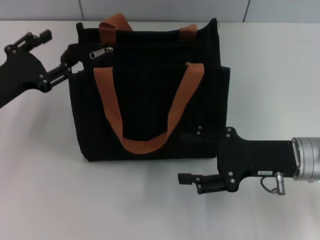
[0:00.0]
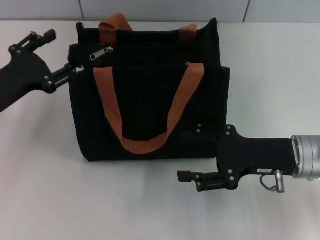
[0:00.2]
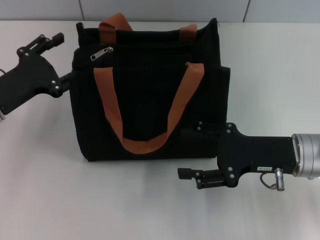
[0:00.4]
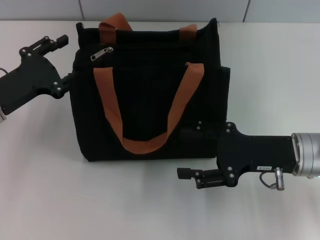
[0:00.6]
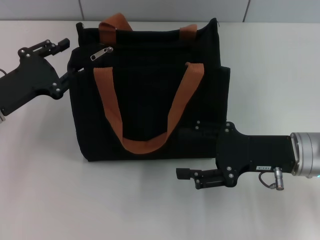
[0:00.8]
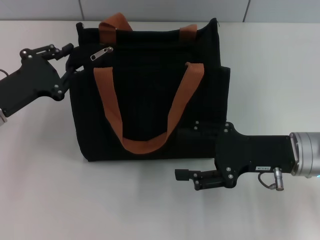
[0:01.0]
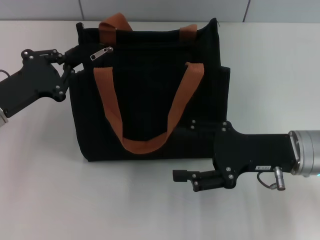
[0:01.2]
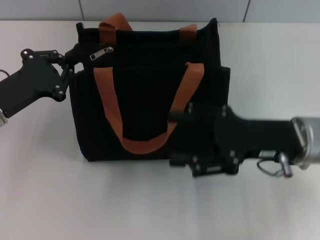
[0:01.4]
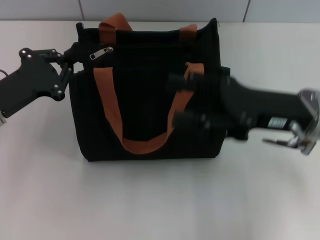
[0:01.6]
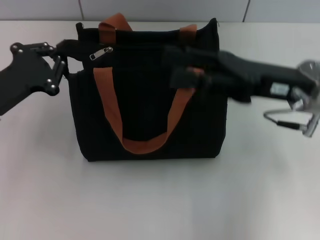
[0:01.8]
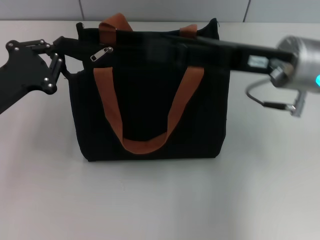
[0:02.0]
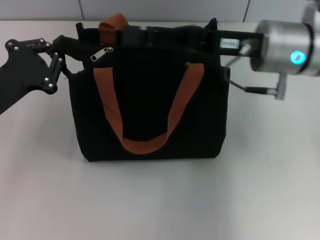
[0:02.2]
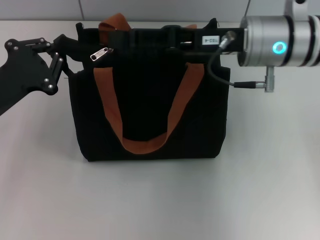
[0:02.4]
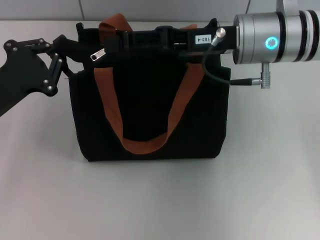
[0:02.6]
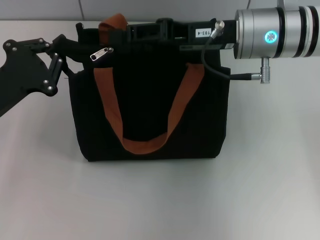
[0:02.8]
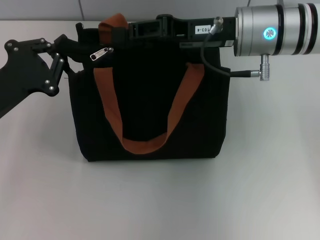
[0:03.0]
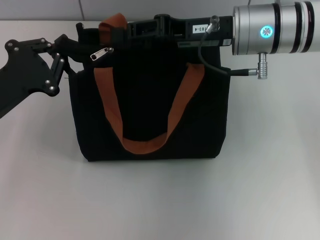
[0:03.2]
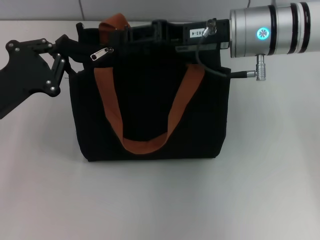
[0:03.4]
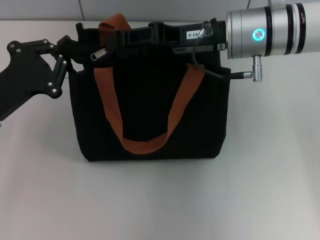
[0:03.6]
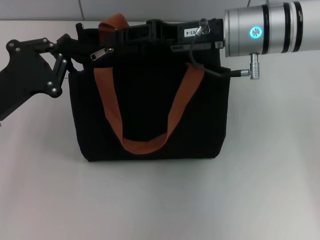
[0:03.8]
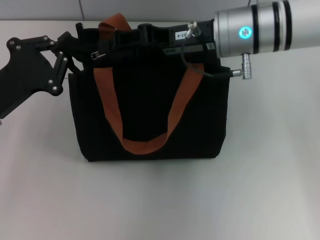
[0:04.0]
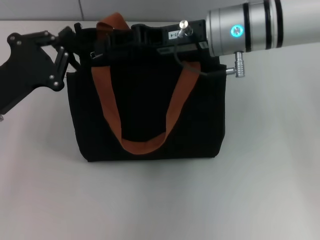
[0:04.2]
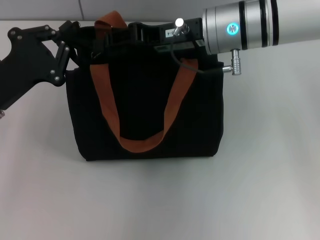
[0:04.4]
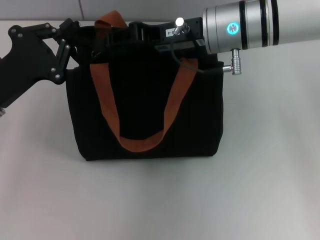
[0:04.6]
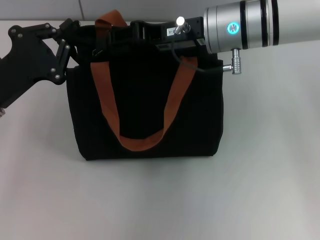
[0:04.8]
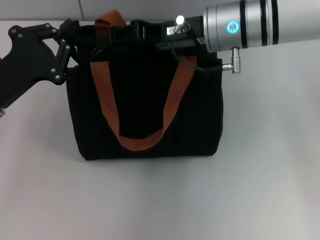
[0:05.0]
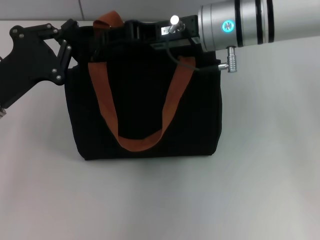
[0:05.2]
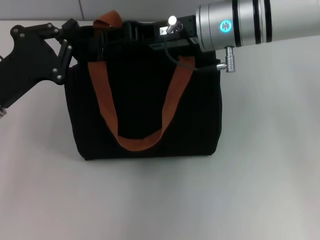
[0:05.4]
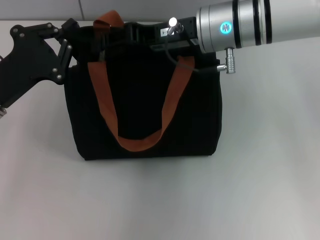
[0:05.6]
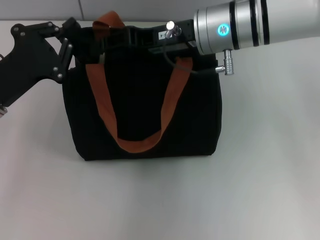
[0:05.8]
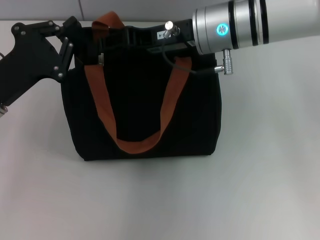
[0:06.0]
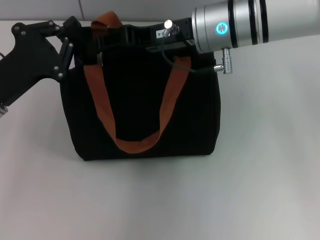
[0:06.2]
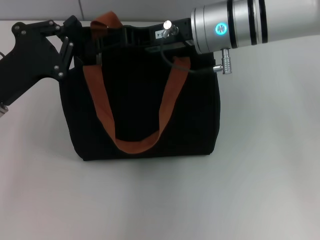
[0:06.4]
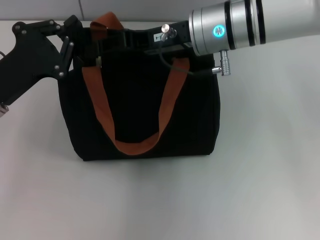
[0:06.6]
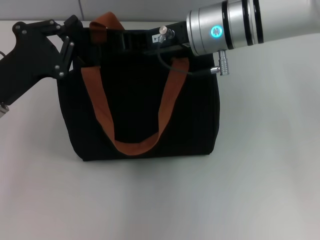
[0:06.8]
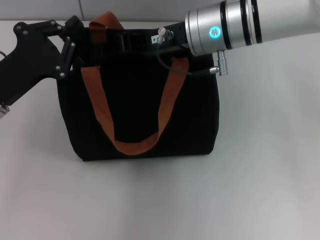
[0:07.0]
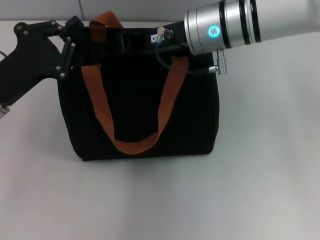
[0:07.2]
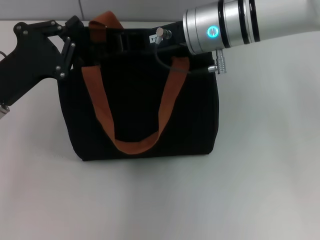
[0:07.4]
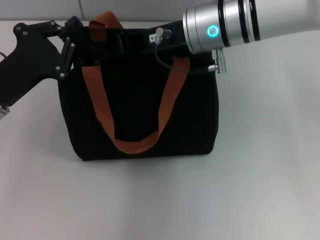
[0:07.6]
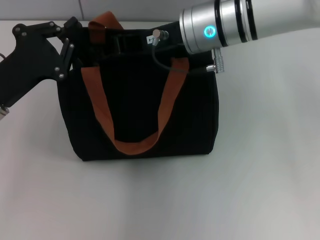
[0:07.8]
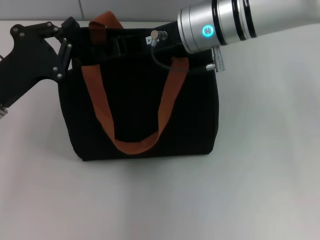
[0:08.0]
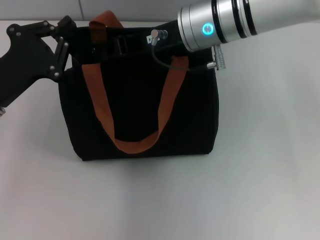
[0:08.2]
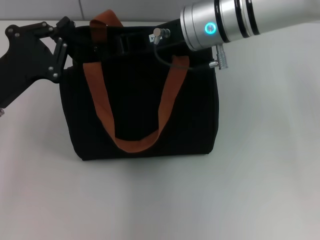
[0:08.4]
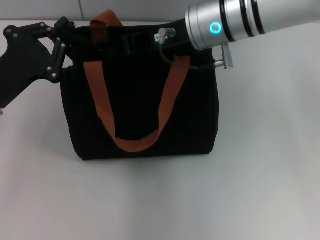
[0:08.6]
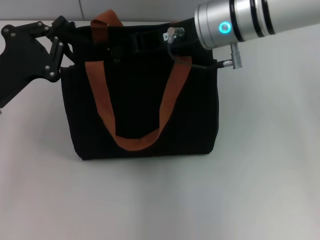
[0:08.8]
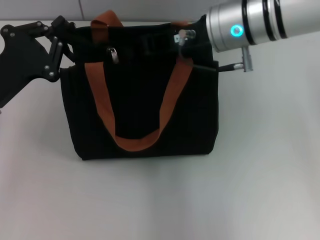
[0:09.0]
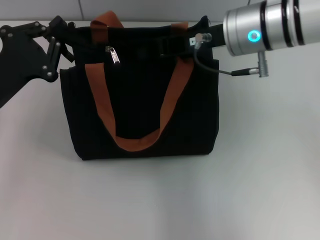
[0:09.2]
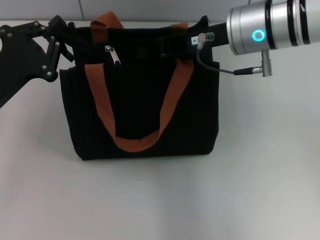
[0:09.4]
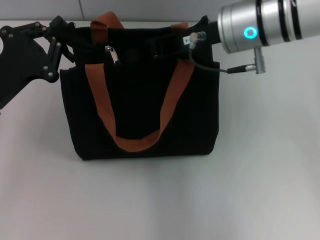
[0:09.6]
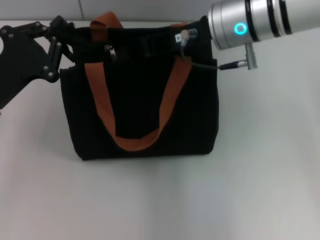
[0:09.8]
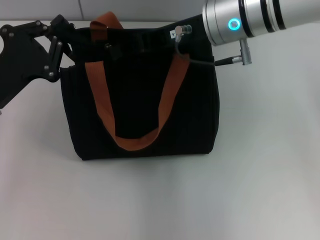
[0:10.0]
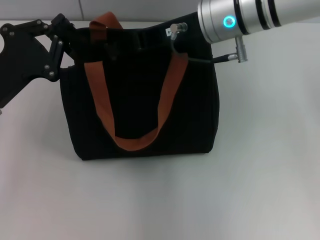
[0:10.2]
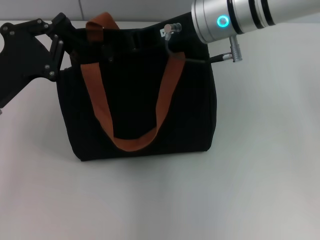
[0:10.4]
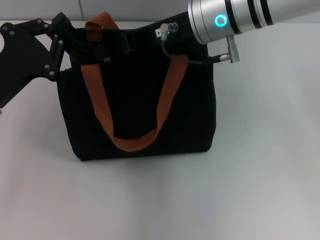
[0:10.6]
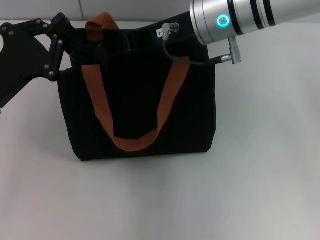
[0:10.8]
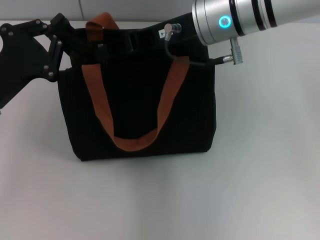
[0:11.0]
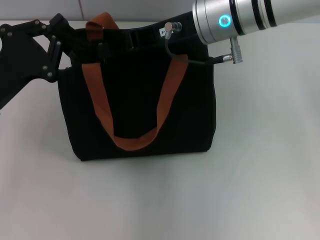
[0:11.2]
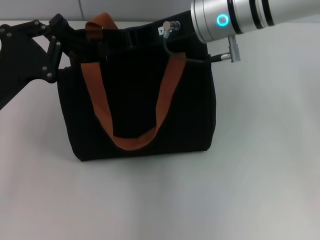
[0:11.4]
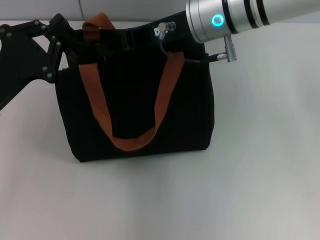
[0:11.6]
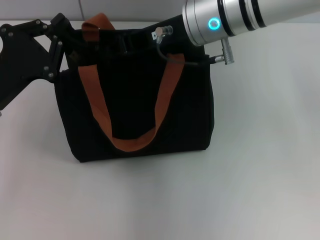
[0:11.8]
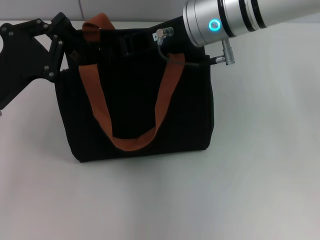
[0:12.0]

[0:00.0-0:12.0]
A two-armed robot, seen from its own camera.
0:00.0 to 0:01.6: The left gripper closes; the right gripper travels upward by about 5 cm.
0:01.6 to 0:03.0: The right gripper is displaced forward, to the left and upward by approximately 10 cm.
0:03.0 to 0:04.4: The grippers move only a little.
0:04.4 to 0:06.0: The two grippers keep their place.
0:06.0 to 0:07.6: The right gripper closes its fingers.
0:07.6 to 0:09.0: The grippers make only small movements.
0:09.0 to 0:10.4: The right gripper opens.
0:10.4 to 0:12.0: The right gripper closes up.

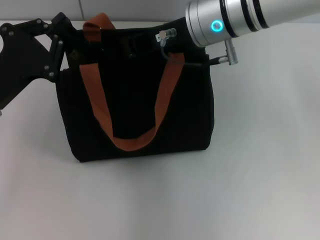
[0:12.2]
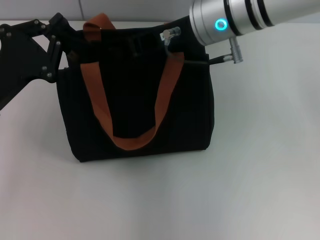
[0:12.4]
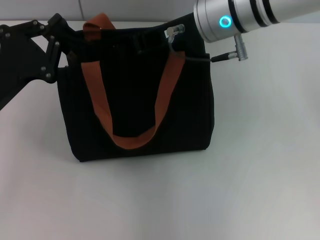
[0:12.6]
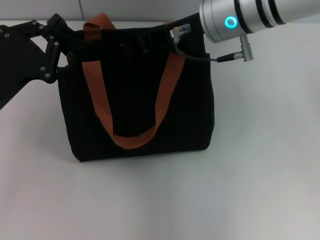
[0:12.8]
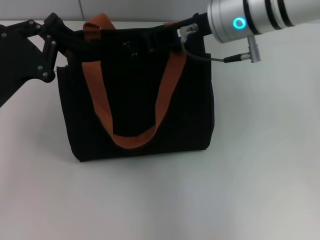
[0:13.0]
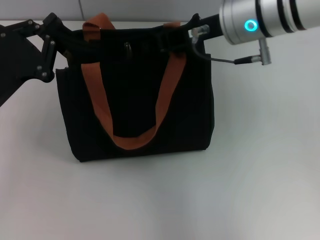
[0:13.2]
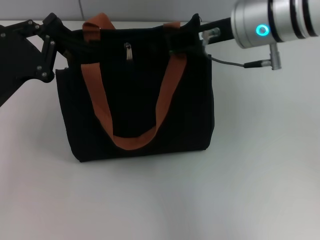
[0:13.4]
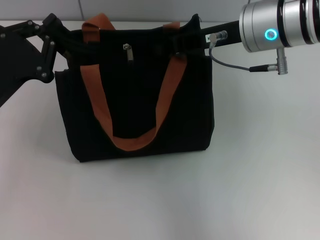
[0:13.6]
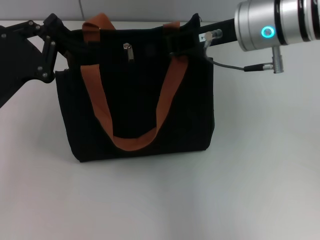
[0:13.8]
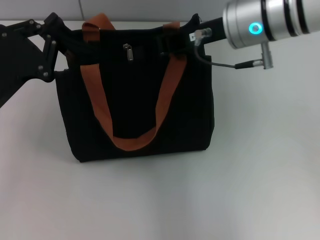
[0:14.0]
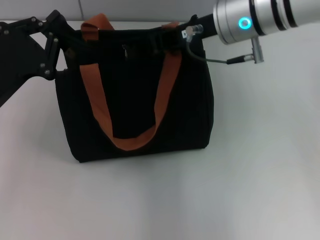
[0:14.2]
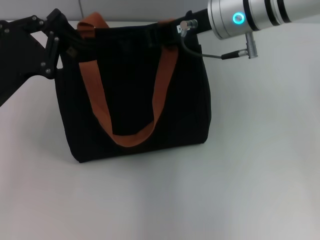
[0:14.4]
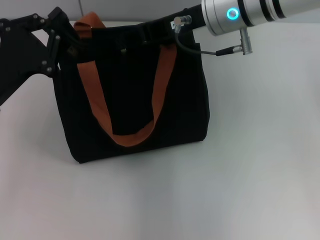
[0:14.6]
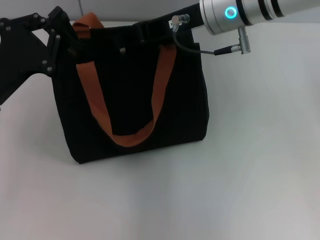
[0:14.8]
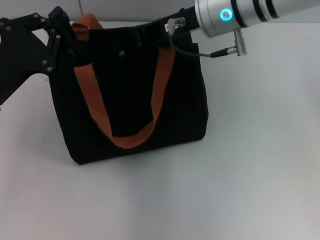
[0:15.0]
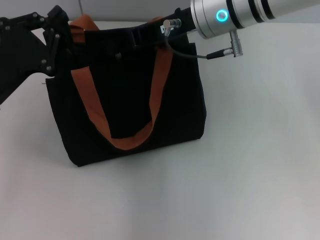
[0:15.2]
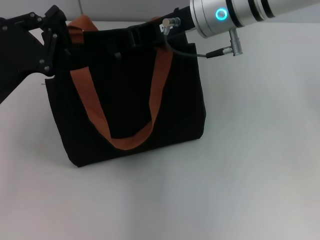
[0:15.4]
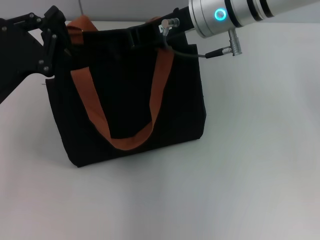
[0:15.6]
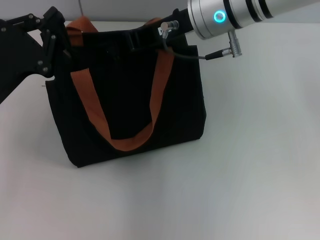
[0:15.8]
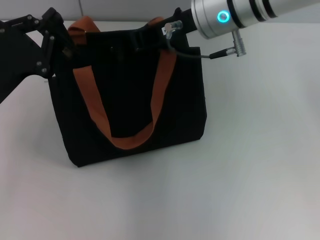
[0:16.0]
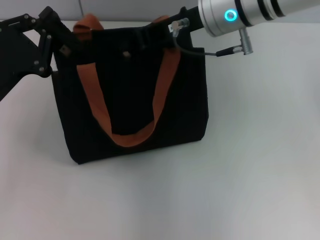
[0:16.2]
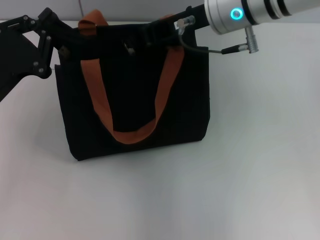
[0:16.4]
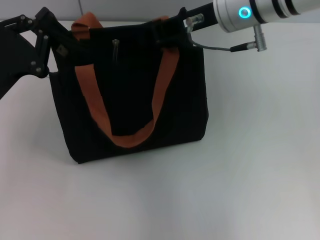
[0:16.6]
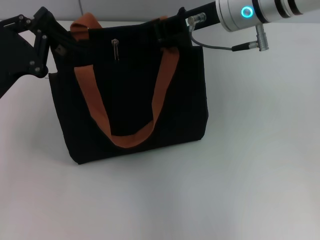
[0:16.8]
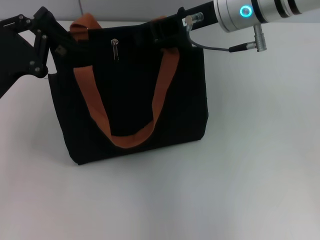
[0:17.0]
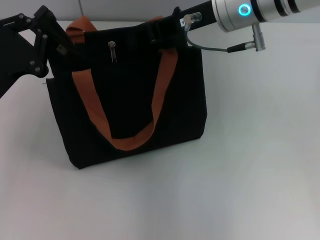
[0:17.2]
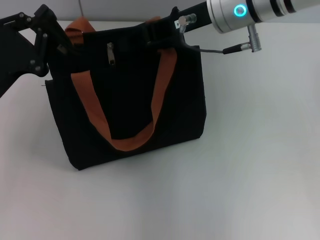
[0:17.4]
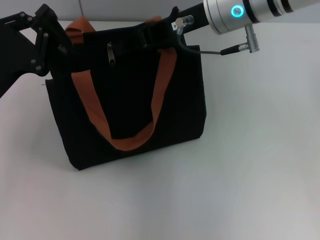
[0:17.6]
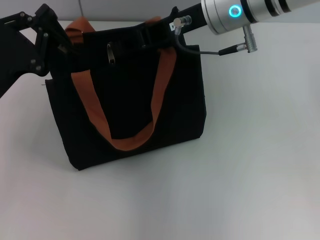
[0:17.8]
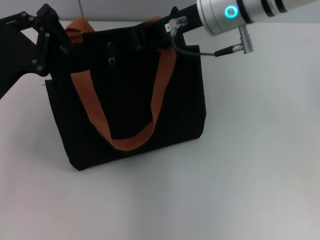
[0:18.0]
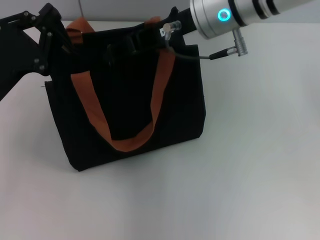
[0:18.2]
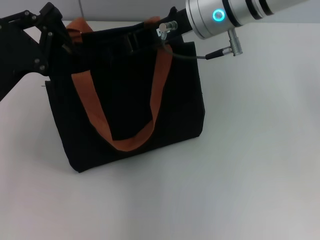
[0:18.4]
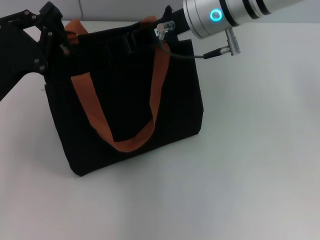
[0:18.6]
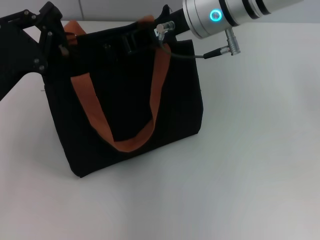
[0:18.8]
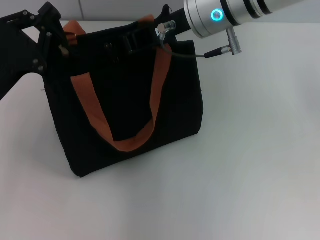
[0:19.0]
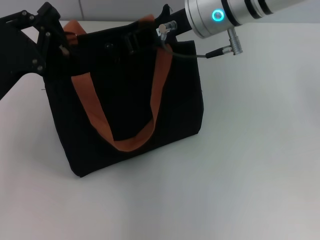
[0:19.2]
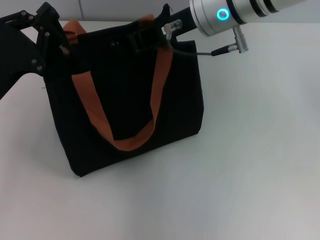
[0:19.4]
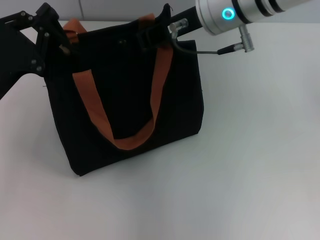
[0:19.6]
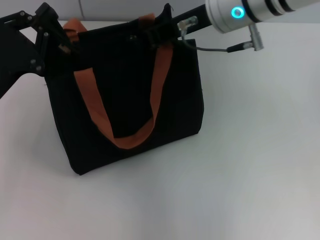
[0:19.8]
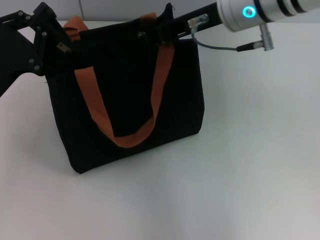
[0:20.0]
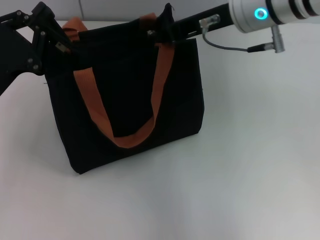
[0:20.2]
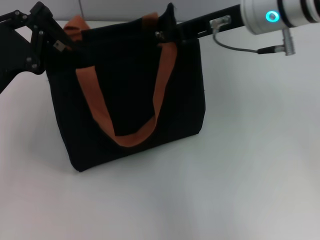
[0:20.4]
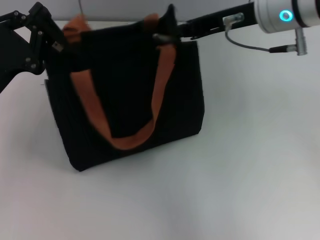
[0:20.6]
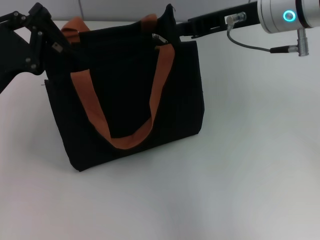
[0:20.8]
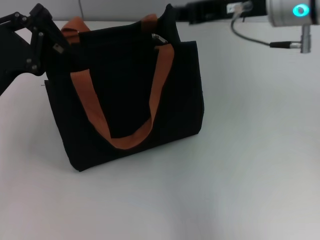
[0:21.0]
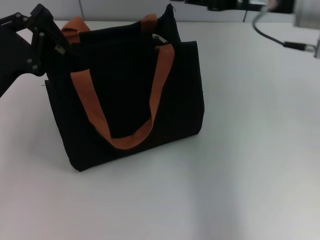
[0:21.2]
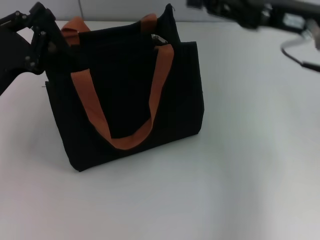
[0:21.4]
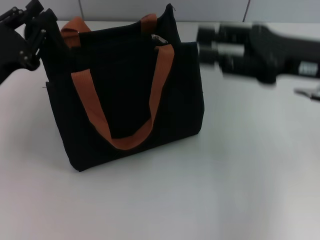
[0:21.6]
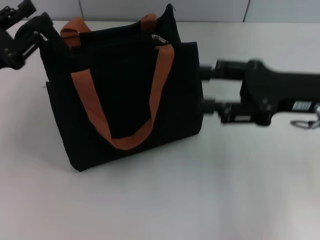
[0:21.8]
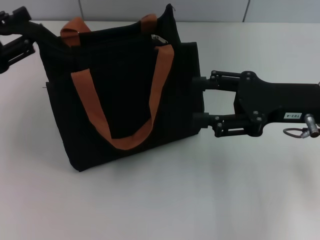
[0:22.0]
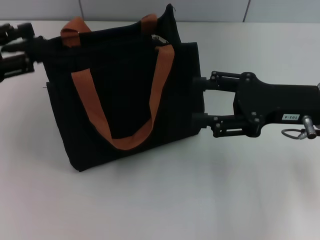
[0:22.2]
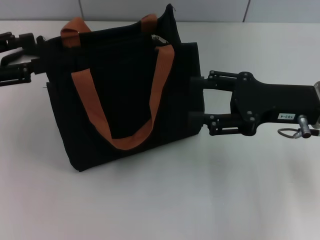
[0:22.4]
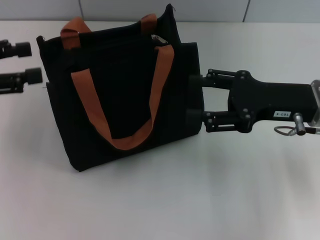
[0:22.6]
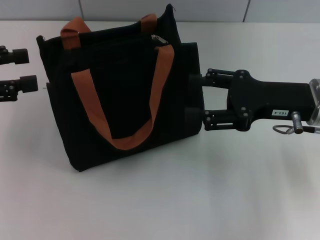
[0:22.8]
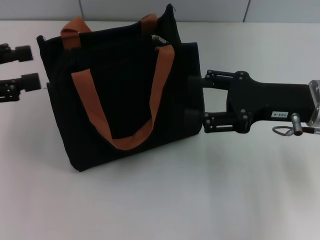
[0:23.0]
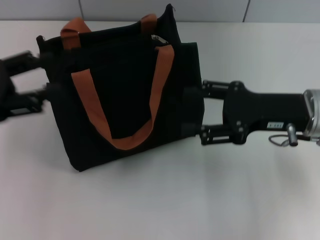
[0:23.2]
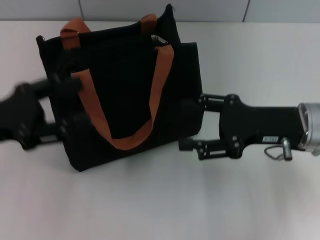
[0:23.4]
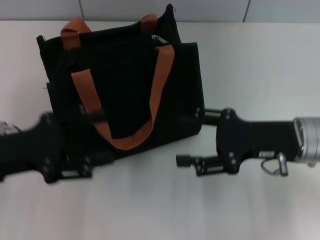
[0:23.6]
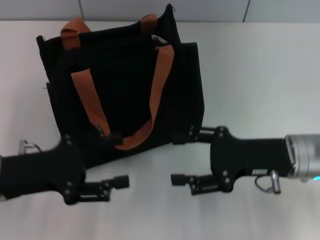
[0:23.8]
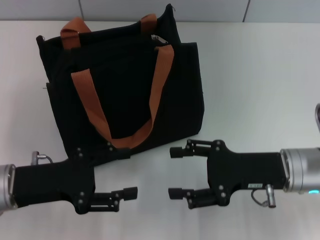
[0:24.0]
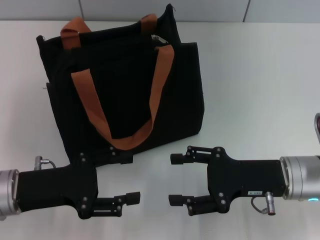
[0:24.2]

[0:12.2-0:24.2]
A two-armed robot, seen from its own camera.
Step, 0:12.2 to 0:20.4: Pull up the zipper with your right hand.
Step, 0:20.8 to 0:22.4: Grab the zipper with your left hand.
0:12.2 to 0:13.8: The right gripper moves roughly 5 cm.
0:13.8 to 0:15.2: The right gripper ends up about 5 cm from where it was.
0:15.2 to 0:16.6: The right gripper closes its fingers.
0:16.6 to 0:18.2: The right gripper opens its fingers.
0:18.2 to 0:19.8: The right gripper closes.
0:19.8 to 0:21.2: The right gripper shifts about 10 cm to the right.
0:21.2 to 0:22.6: The left gripper is displaced upward and to the left by about 10 cm, and opens, while the right gripper moves downward and backward, about 10 cm, and opens up.
0:22.6 to 0:24.2: The left gripper is displaced downward, to the right and backward by some 20 cm, while the right gripper goes approximately 10 cm downward and backward.
